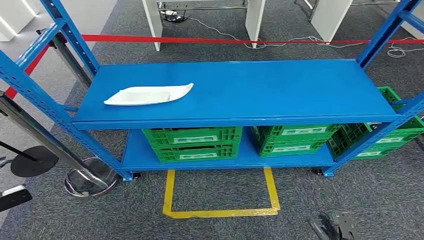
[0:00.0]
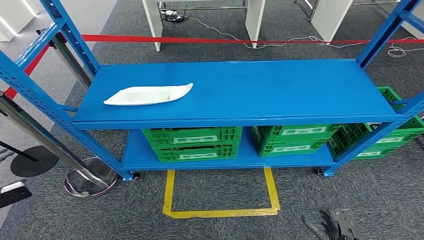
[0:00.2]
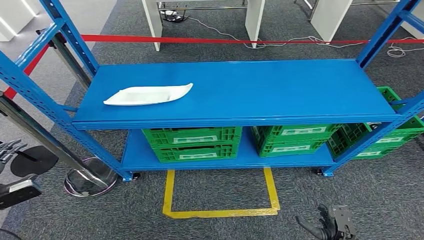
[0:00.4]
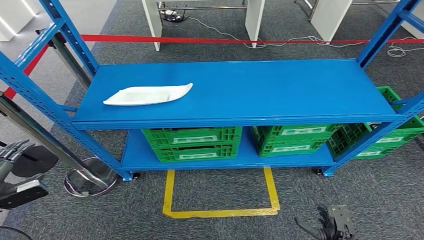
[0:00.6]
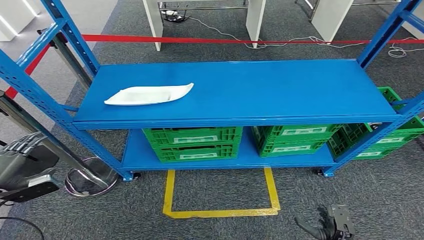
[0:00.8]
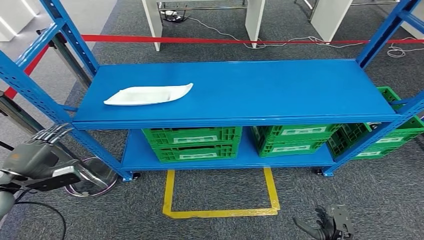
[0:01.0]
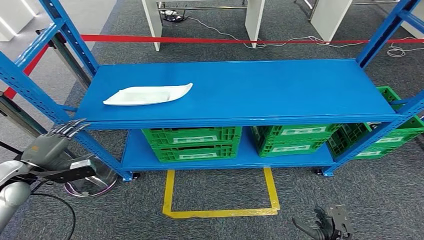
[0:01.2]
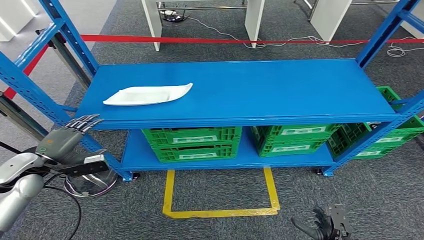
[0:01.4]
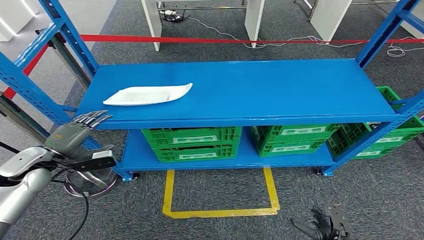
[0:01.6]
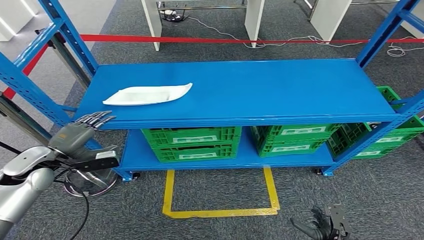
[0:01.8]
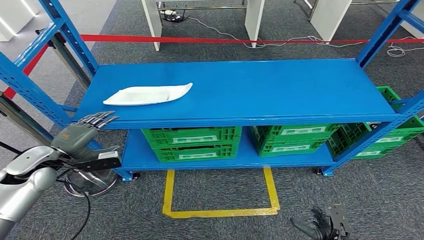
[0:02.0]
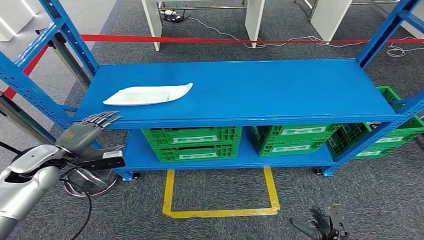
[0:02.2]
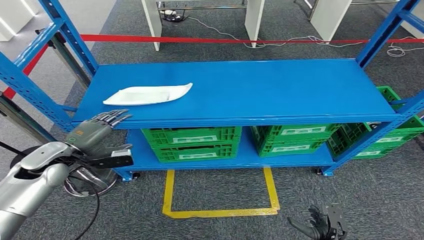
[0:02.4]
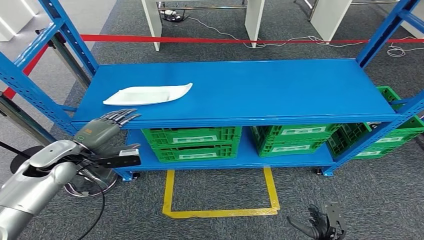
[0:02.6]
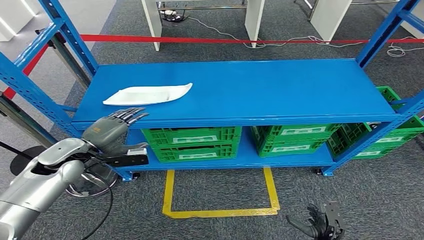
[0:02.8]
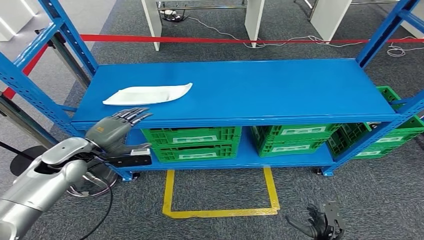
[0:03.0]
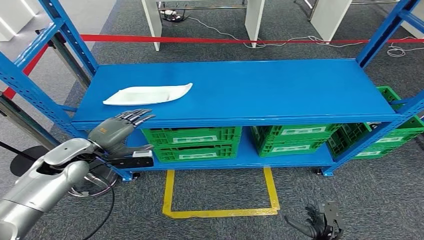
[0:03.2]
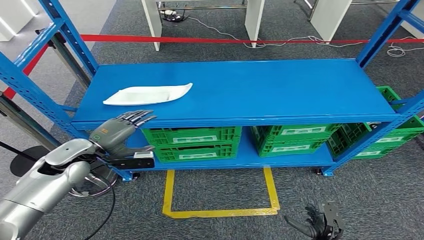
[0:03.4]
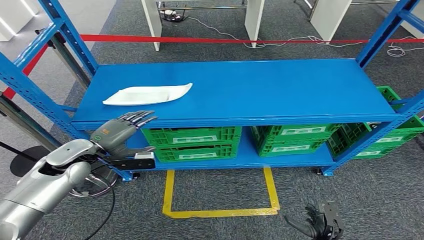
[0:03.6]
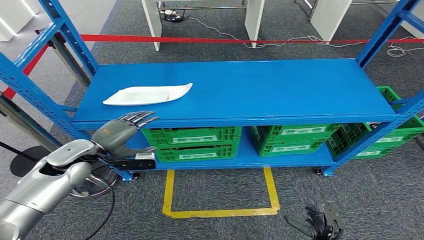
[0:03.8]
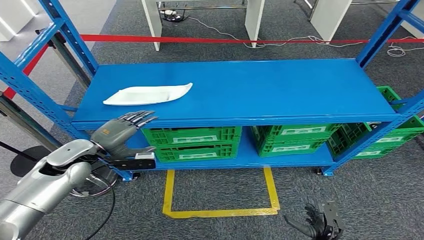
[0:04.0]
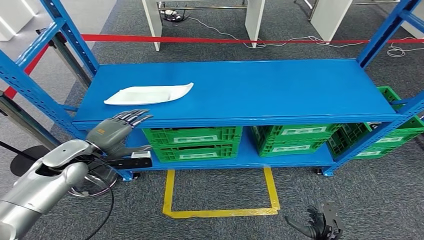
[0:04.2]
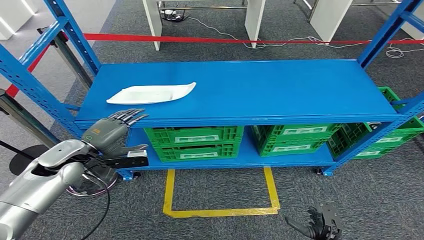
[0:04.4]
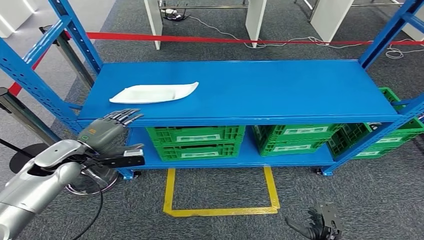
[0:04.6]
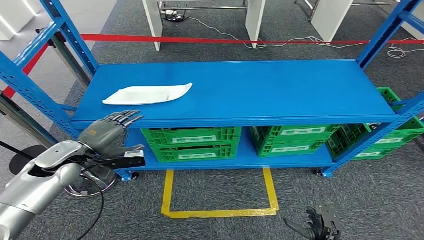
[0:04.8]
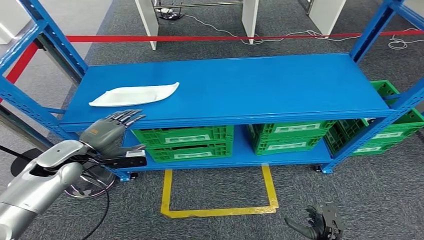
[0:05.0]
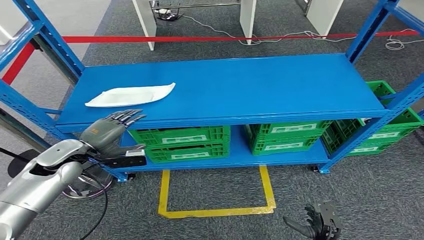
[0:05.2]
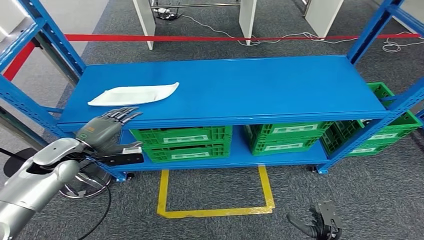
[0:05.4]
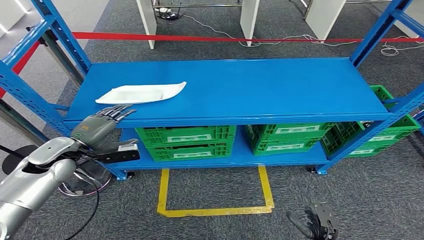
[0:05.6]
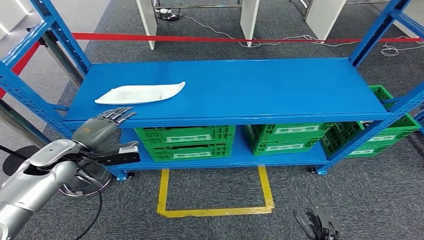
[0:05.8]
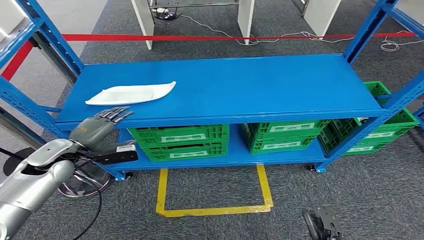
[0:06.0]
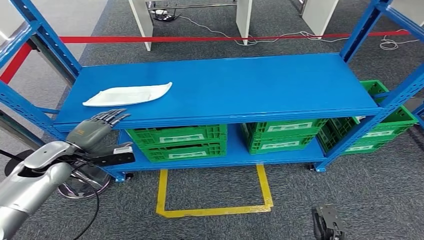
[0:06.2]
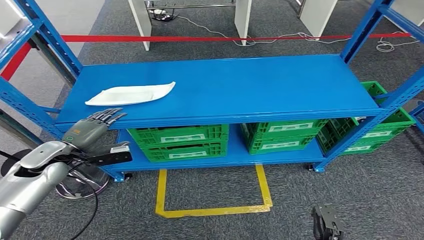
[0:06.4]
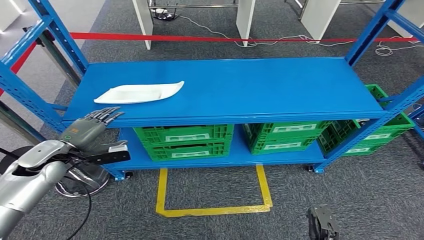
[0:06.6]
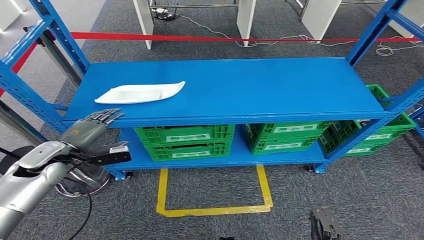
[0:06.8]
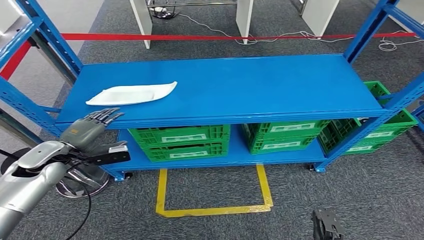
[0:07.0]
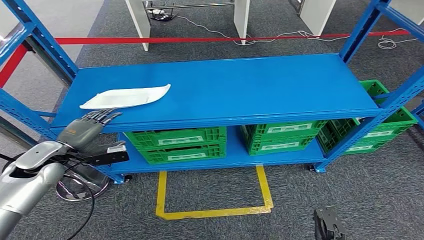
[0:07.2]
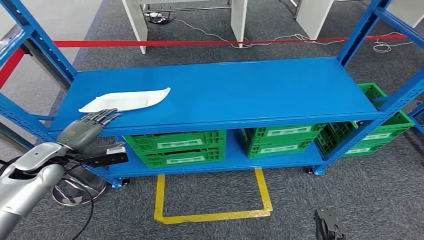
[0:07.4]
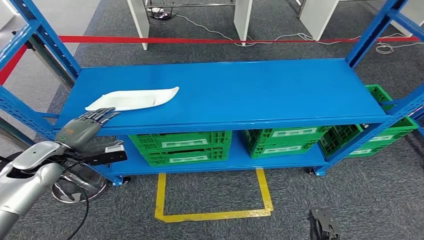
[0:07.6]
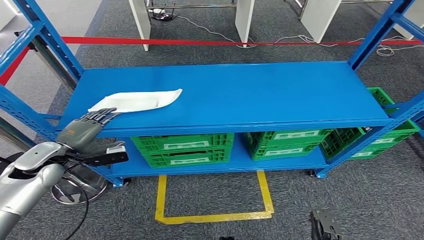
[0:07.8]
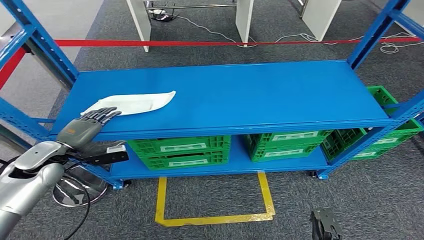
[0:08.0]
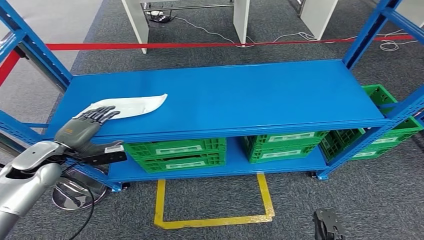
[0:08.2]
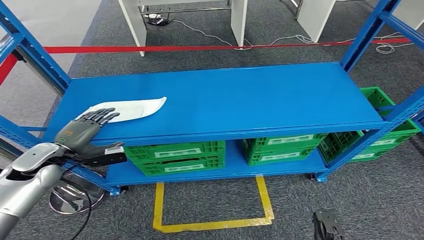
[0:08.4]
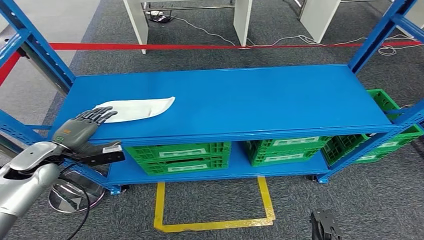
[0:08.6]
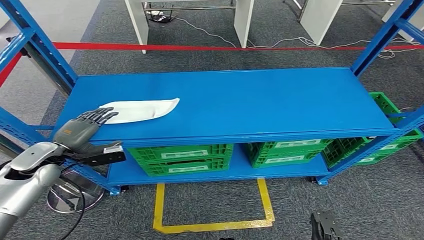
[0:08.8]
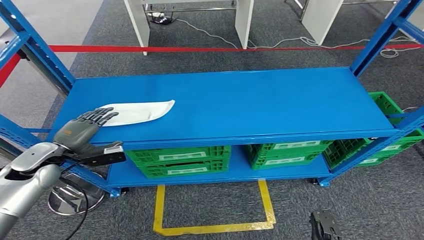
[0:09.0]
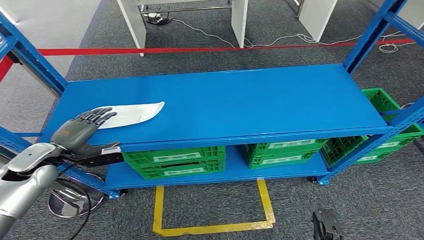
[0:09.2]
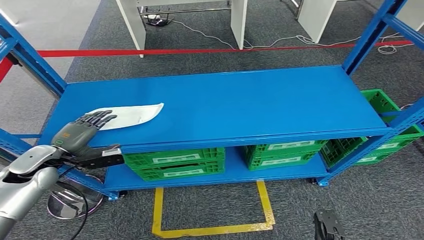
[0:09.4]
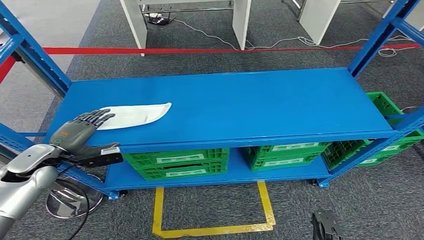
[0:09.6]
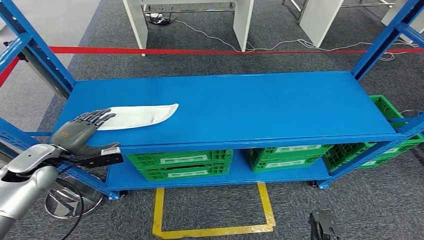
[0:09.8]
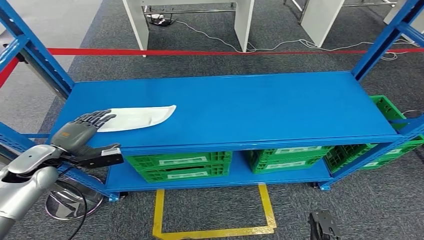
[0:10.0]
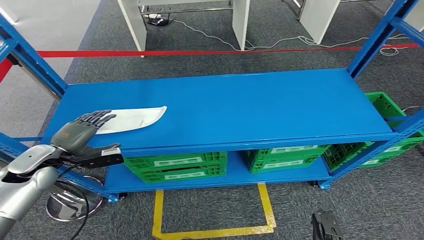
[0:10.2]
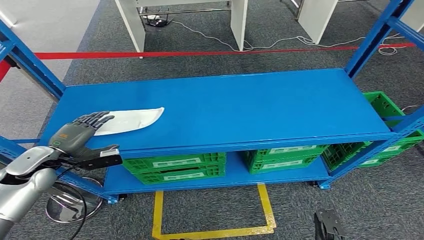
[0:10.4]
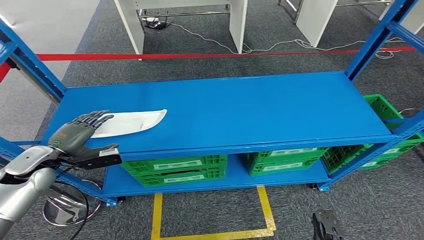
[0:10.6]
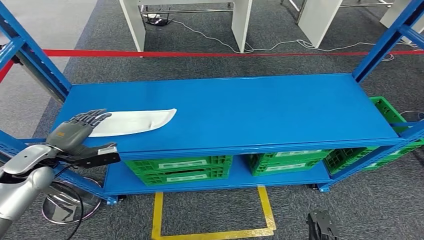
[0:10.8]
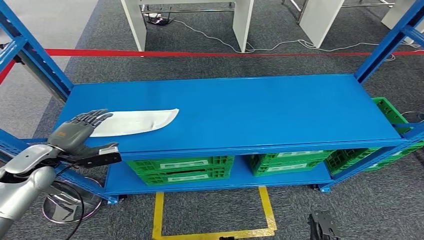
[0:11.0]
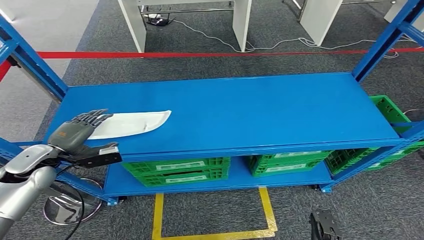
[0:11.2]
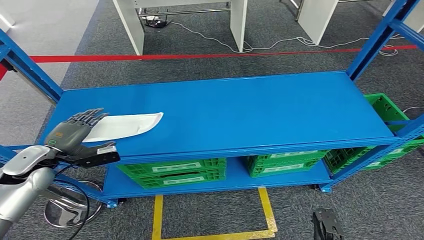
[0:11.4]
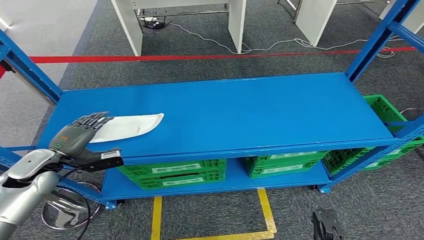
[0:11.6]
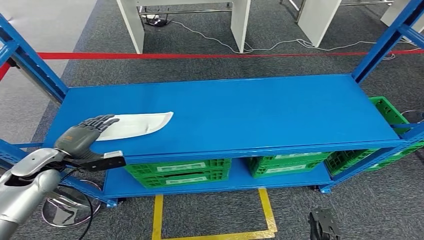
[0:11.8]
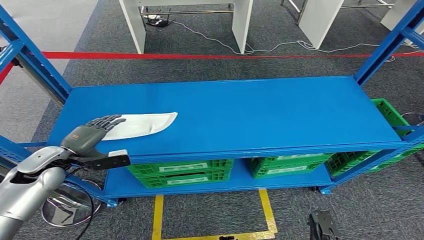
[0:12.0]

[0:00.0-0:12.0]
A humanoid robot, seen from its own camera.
0:01.6 to 0:03.0: The left hand travels to the right by about 10 cm.
0:03.0 to 0:04.4: Both hands stay about where they are.

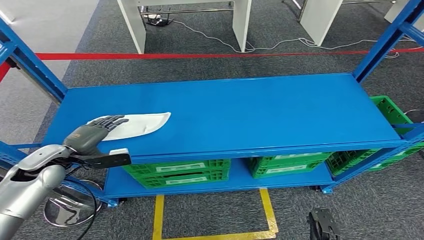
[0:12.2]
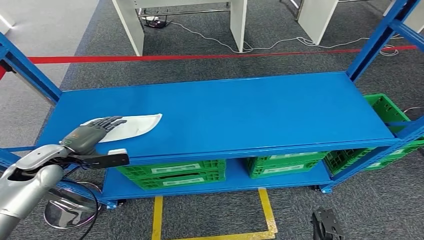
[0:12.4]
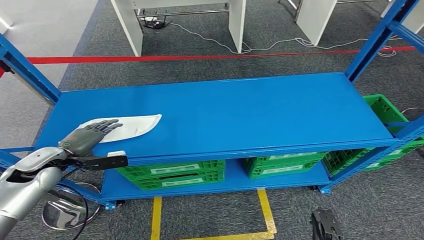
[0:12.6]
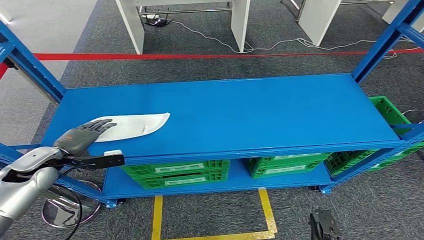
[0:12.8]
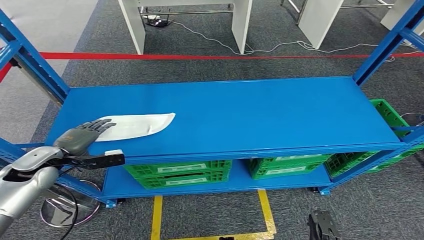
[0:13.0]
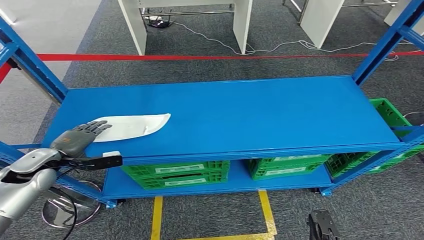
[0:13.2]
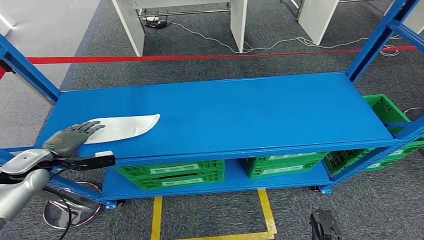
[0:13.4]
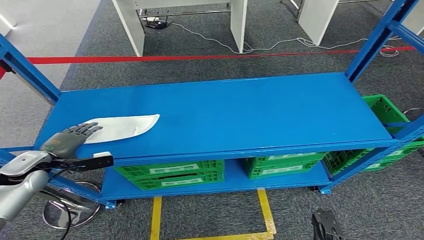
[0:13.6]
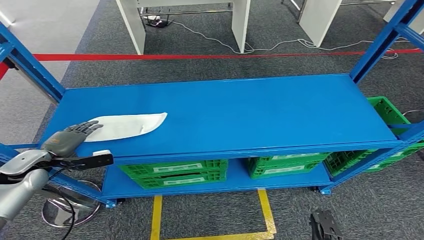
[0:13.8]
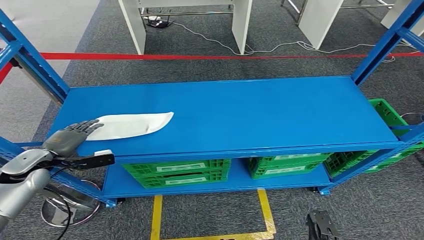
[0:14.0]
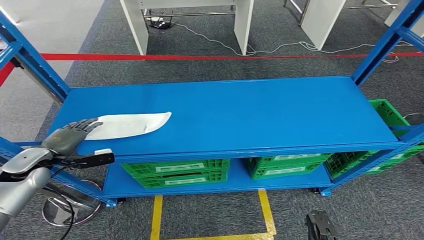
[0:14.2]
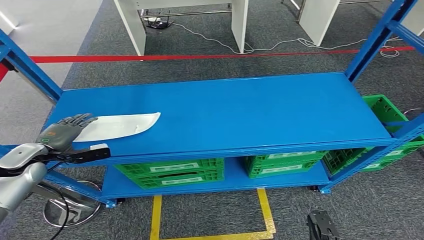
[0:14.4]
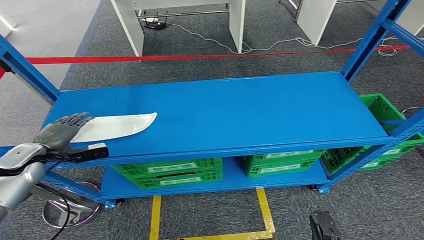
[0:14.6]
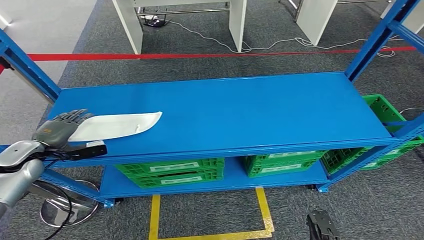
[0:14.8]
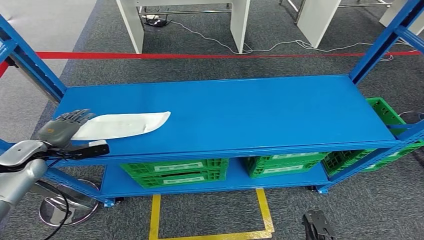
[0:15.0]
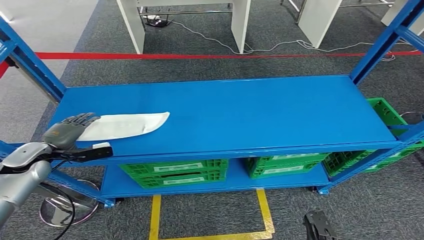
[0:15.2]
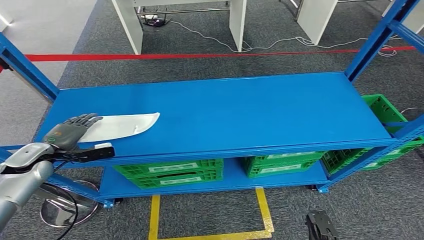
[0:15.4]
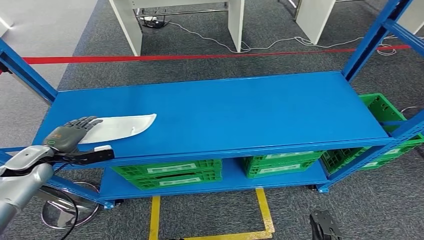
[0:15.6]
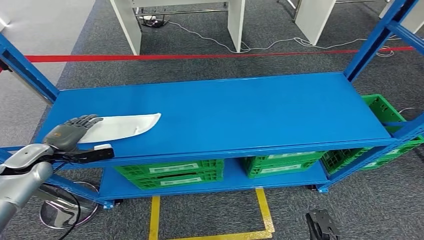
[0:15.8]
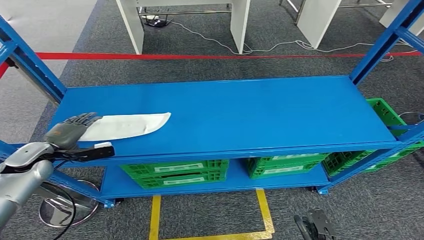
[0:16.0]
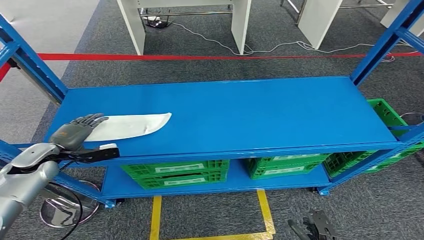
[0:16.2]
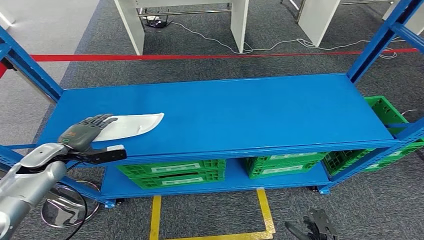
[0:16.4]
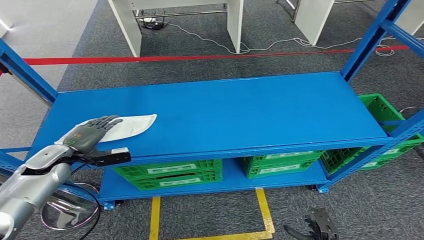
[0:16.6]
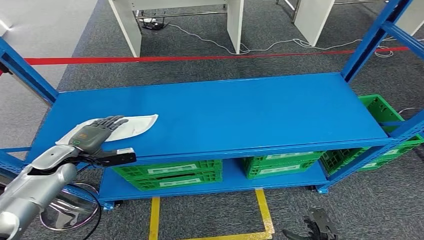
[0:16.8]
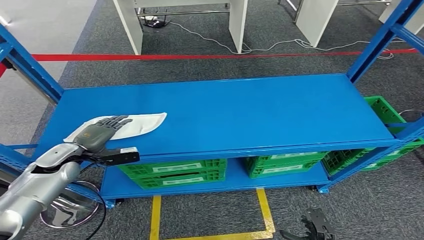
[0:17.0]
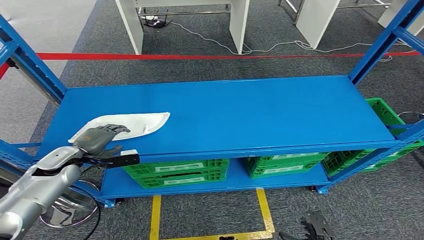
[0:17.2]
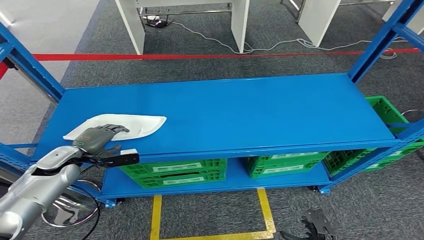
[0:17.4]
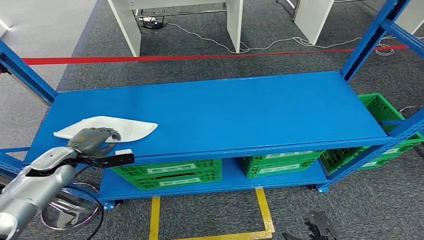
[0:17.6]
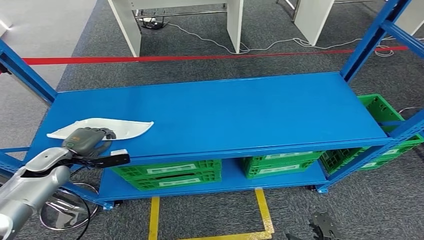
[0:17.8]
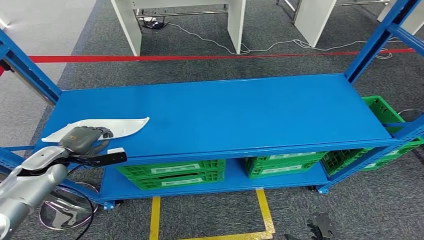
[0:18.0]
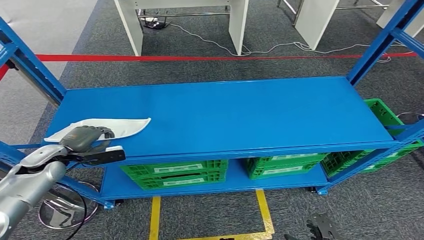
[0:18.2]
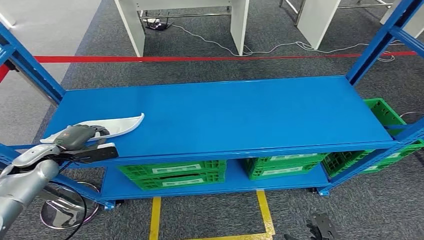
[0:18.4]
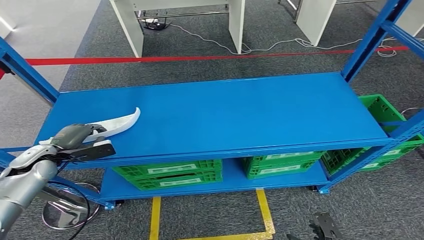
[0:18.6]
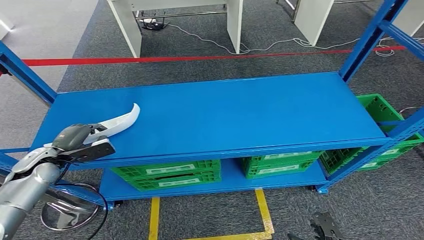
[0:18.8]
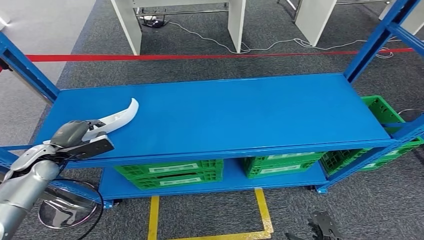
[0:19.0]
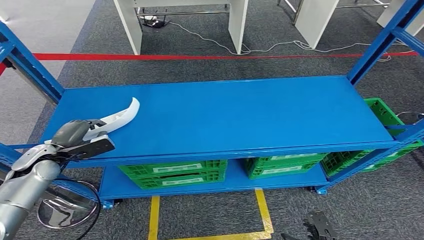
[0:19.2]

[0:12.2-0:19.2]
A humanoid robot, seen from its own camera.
0:12.2 to 0:13.6: The left hand is displaced to the left by some 5 cm.
0:13.6 to 0:16.4: The hands stay close to where they were, moving slightly.
0:16.4 to 0:17.8: There are only small adjustments of the hands.
